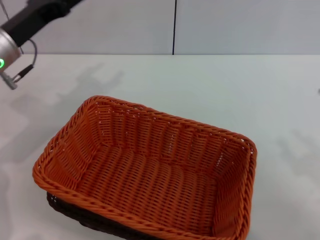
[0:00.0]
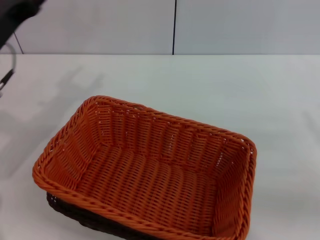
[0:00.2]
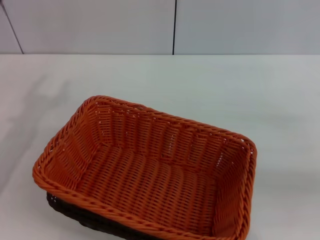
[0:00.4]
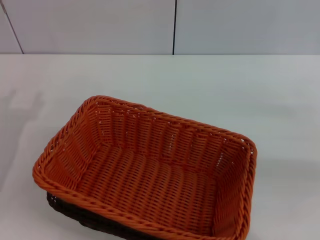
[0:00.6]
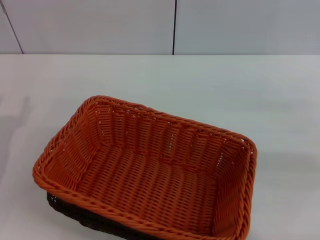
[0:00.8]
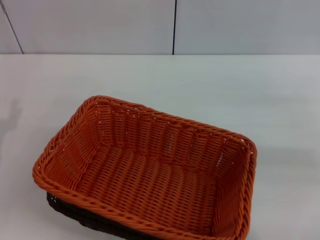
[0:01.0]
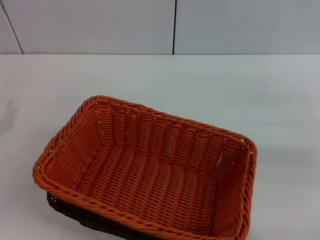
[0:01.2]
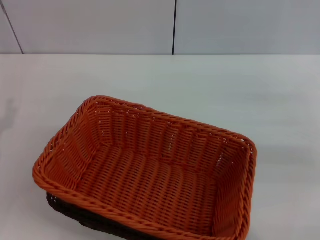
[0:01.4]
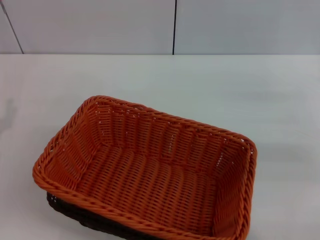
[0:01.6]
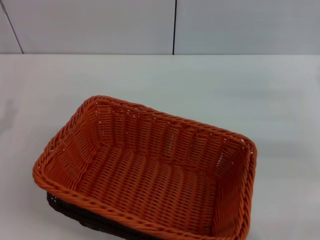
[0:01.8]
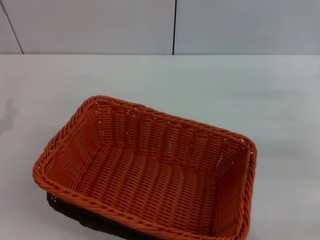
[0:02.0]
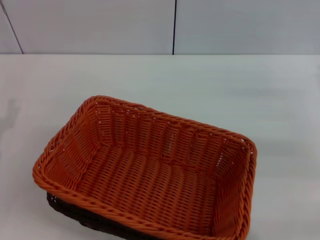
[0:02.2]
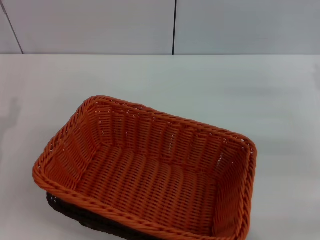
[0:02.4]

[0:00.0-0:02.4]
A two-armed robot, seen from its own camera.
0:00.0 to 0:01.2: The right gripper travels forward, to the right and upward by about 15 cm. Meanwhile the left gripper moves backward, to the left and downward, some 15 cm.
